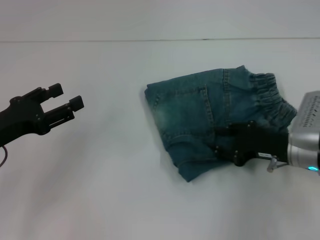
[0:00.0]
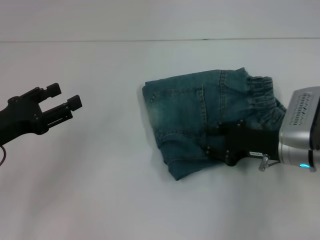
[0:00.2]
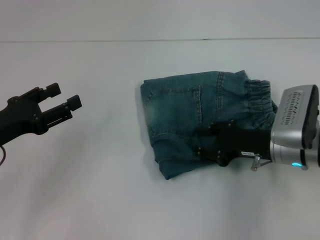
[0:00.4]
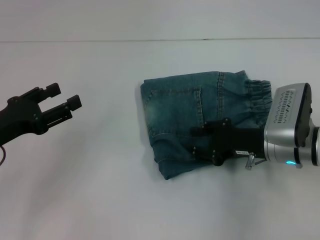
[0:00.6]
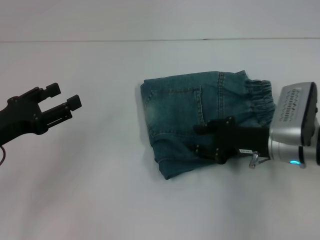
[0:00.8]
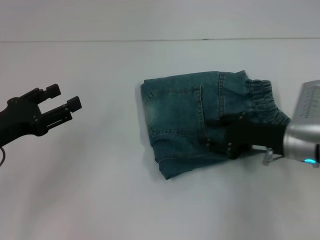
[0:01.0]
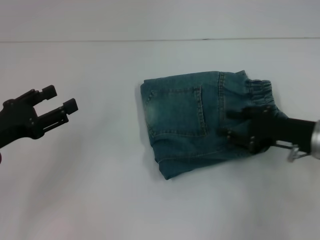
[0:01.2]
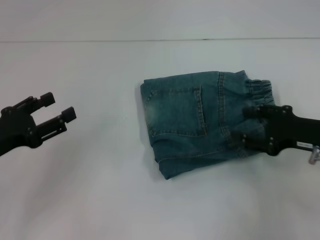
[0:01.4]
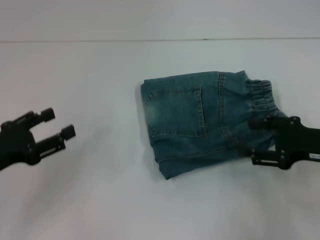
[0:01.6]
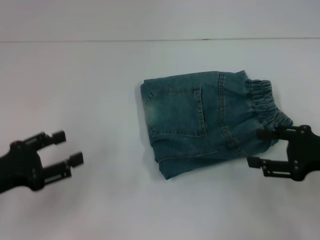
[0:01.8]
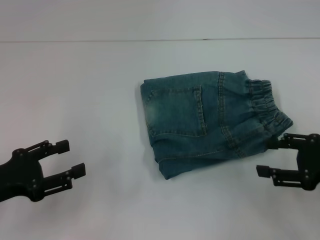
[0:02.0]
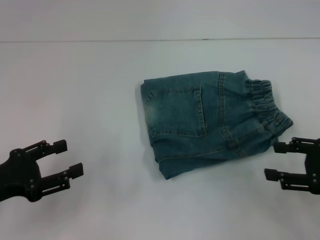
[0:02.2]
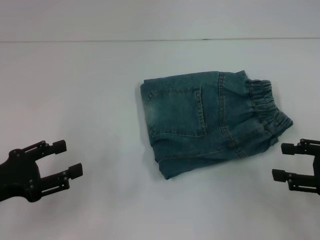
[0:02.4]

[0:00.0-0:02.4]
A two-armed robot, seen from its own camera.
0:00.0 to 0:01.2: There are only small adjustments of the grippers.
0:01.2 to 0:02.4: The right gripper moves to the right and backward, roughly 10 cm.

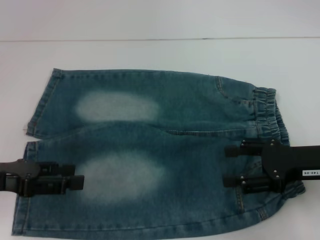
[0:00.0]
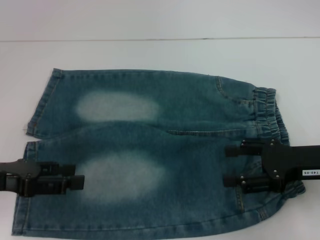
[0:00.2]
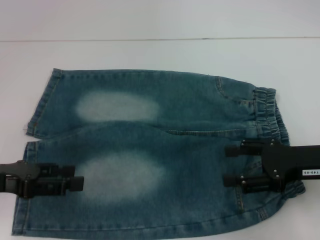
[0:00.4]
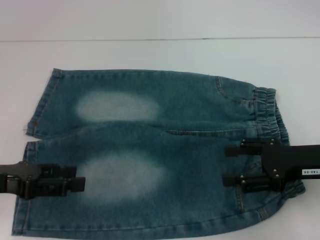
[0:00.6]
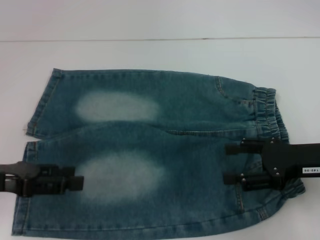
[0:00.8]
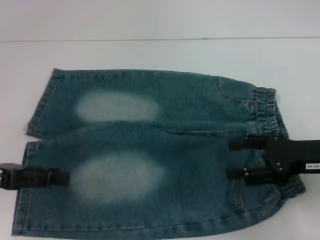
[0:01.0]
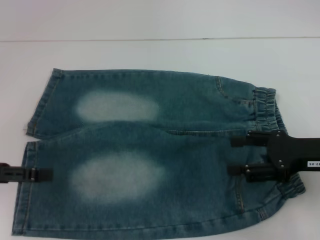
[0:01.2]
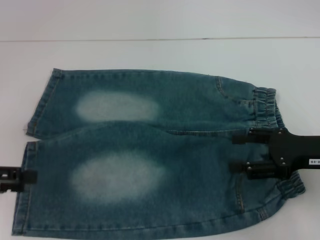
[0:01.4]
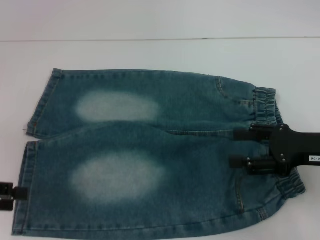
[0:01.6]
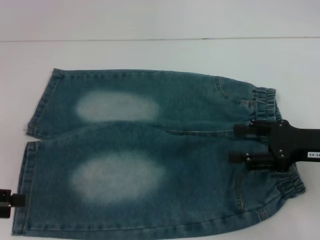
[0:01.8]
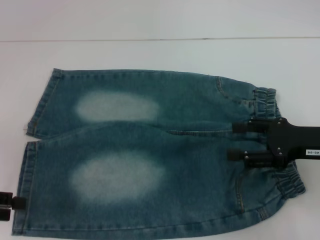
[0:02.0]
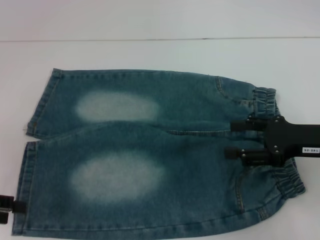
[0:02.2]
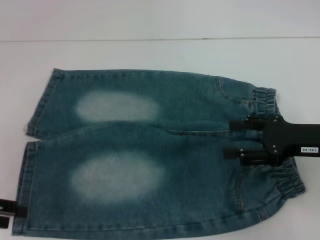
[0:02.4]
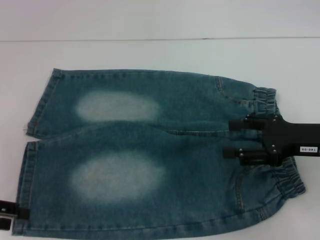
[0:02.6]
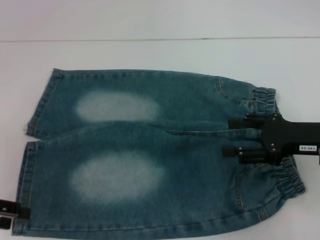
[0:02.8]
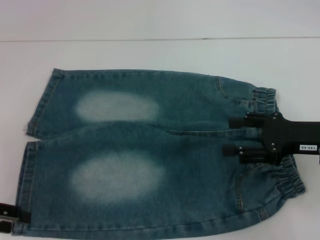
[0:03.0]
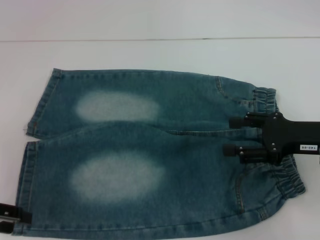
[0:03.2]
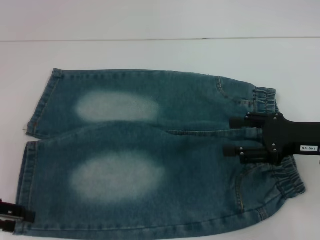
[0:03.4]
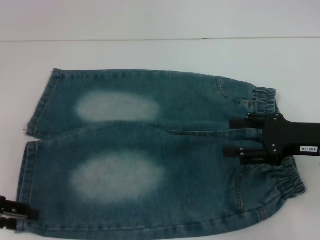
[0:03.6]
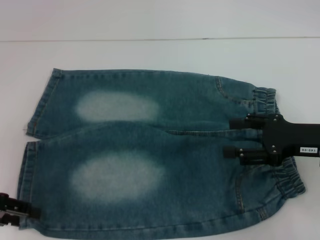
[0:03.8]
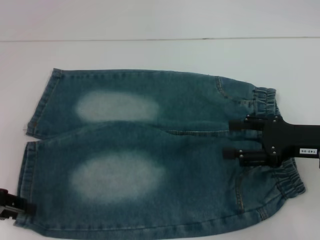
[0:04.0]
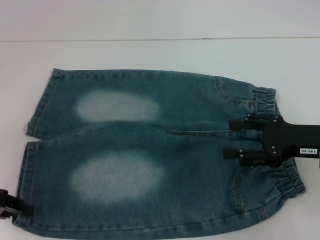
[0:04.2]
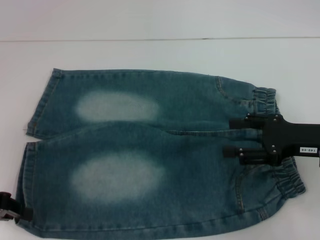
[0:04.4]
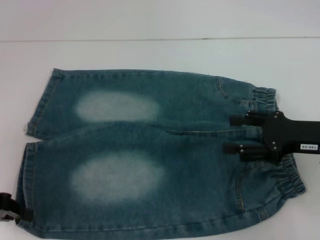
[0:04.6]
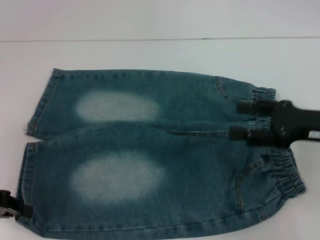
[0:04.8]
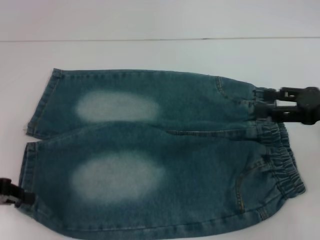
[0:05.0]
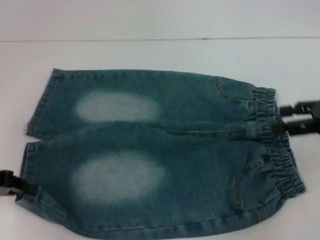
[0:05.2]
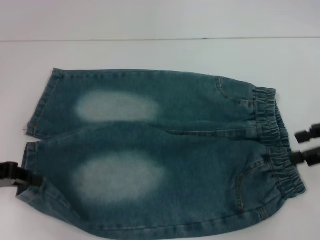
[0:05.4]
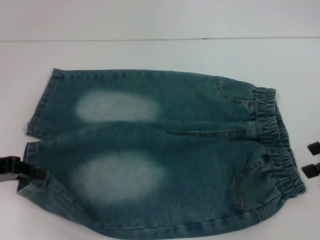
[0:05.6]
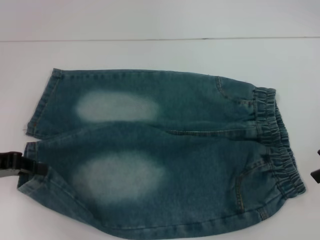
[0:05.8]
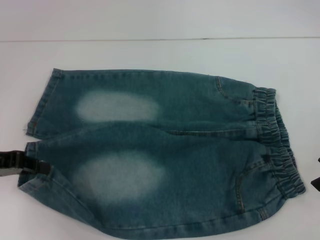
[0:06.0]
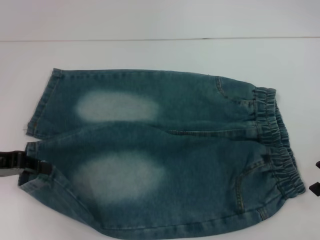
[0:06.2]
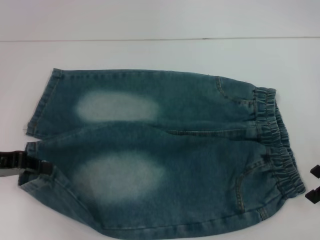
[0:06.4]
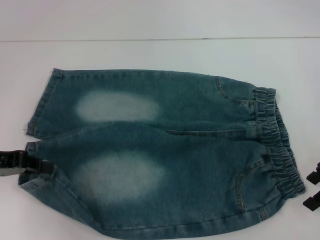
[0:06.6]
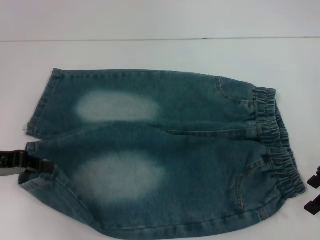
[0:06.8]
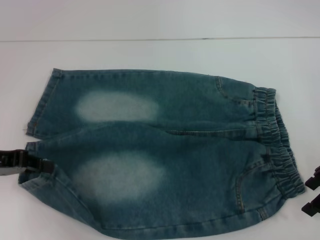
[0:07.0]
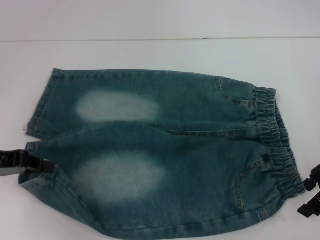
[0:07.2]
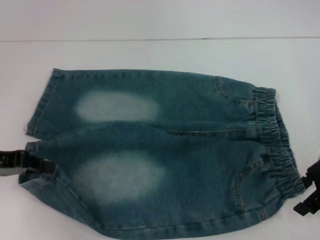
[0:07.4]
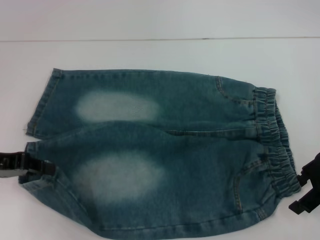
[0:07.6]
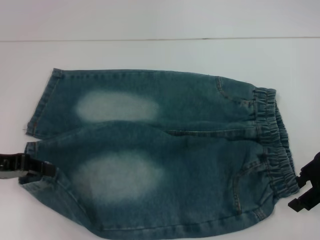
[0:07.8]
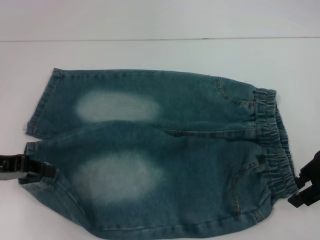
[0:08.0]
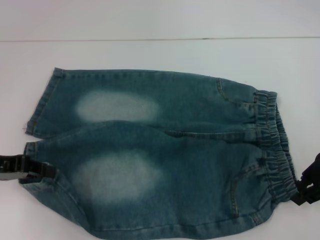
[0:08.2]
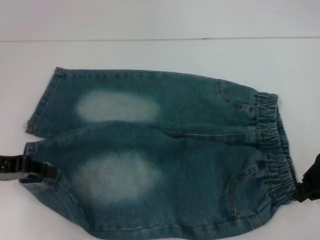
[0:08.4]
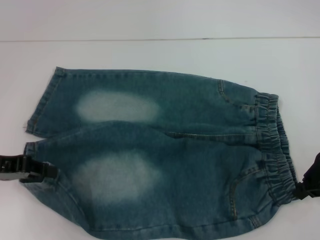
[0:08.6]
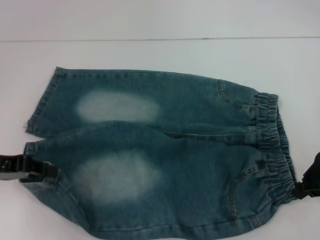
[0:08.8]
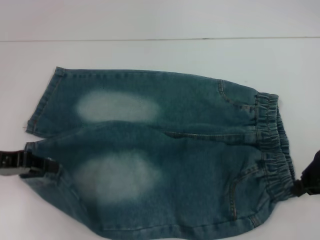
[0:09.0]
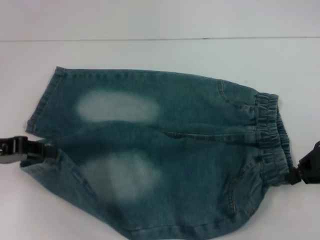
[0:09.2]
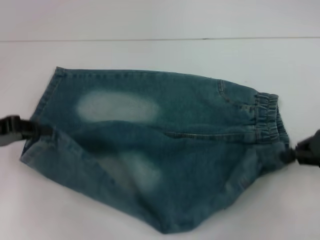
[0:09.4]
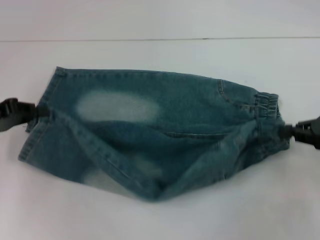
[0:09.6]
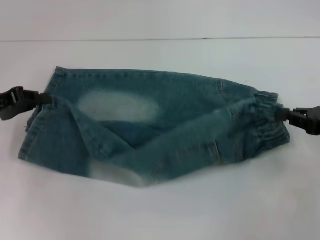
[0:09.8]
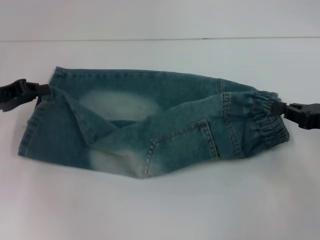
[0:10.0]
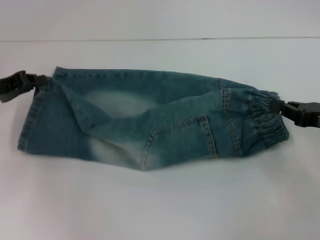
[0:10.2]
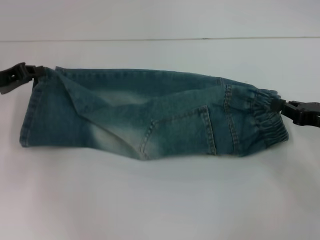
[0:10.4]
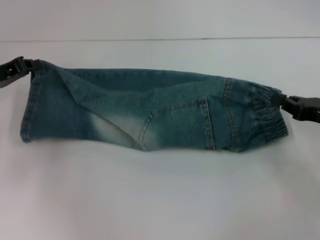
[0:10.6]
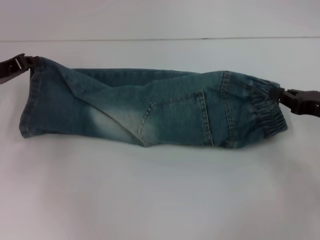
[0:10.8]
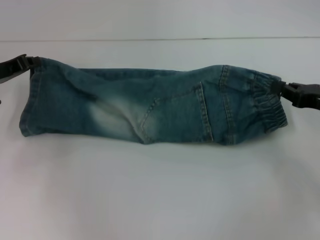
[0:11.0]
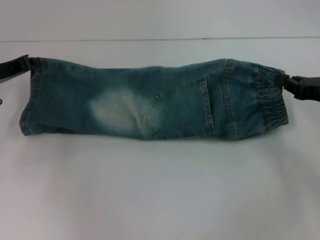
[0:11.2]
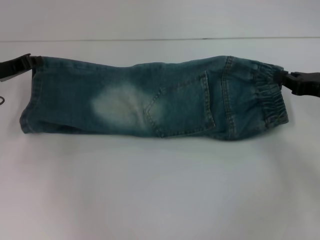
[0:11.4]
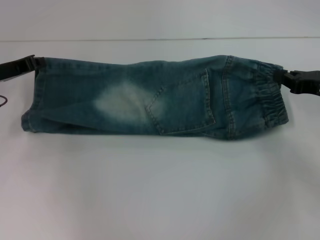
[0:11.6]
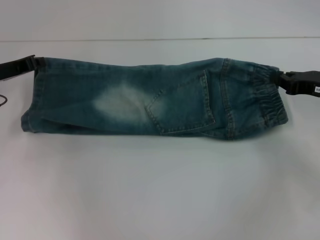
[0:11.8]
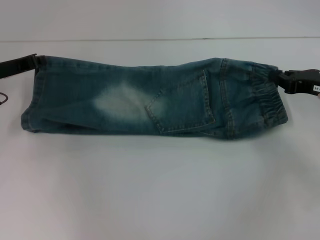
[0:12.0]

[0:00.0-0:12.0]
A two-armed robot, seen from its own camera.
Step, 0:00.0 to 0:04.8: Grab the lower left pant leg with your left hand.
Step, 0:05.0 to 0:08.4: Hold the lower right waistband with your right hand.
0:00.0 to 0:01.6: The left gripper travels to the left by roughly 5 cm.
0:01.6 to 0:03.0: There are only small adjustments of the grippers.
0:03.0 to 0:04.4: The left gripper closes.
0:04.4 to 0:06.0: The right gripper is displaced upward and to the right by some 10 cm.
0:06.0 to 0:07.6: The right gripper shifts by about 5 cm.
0:07.6 to 0:09.0: The right gripper closes its fingers.
0:09.0 to 0:10.4: The right gripper heads downward, covering roughly 5 cm. Meanwhile the left gripper moves forward, approximately 10 cm.
0:10.4 to 0:12.0: The right gripper is displaced forward by approximately 5 cm.

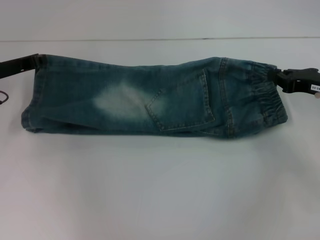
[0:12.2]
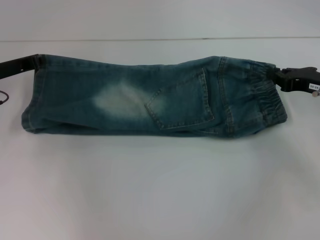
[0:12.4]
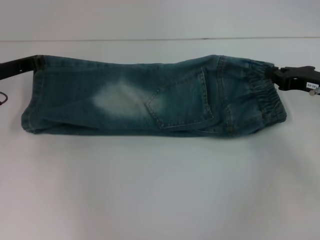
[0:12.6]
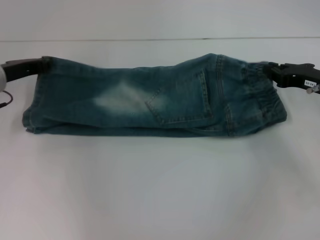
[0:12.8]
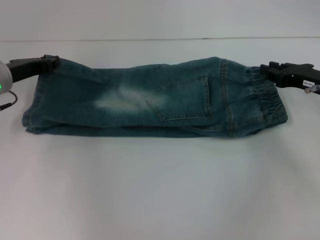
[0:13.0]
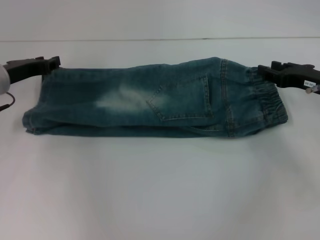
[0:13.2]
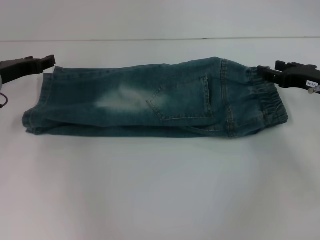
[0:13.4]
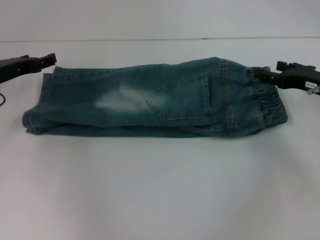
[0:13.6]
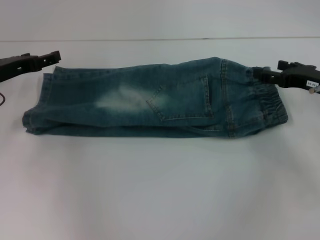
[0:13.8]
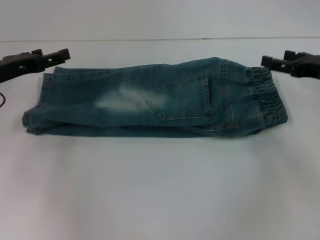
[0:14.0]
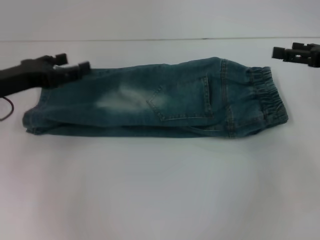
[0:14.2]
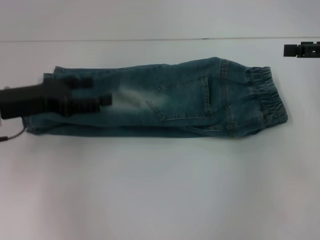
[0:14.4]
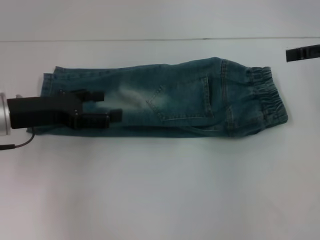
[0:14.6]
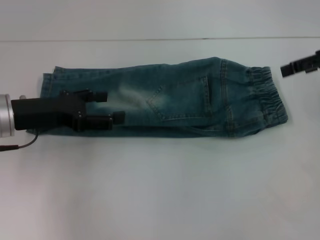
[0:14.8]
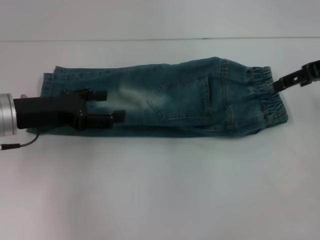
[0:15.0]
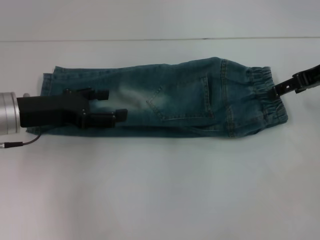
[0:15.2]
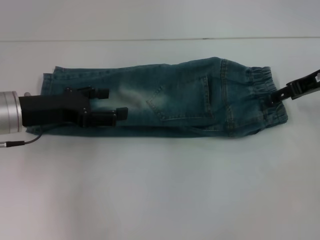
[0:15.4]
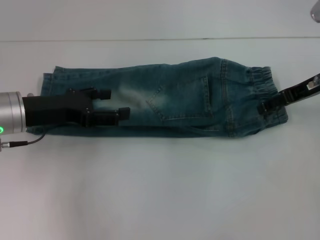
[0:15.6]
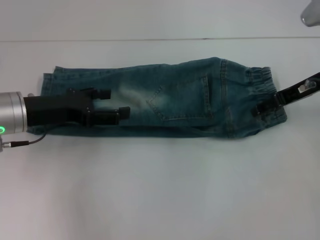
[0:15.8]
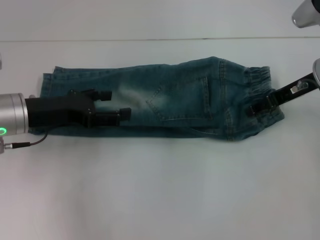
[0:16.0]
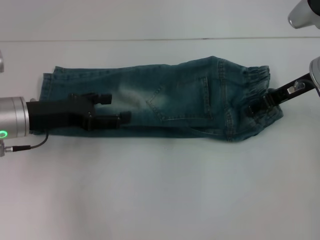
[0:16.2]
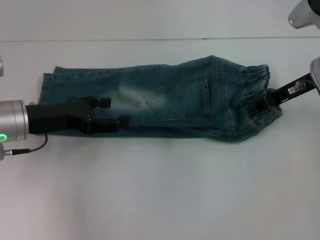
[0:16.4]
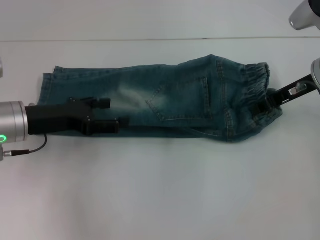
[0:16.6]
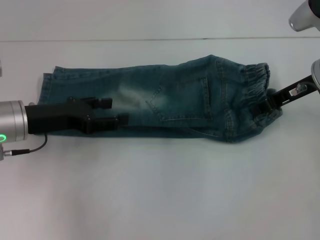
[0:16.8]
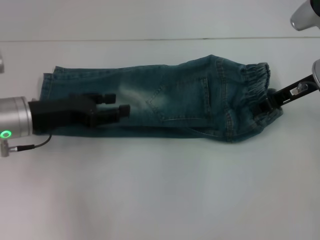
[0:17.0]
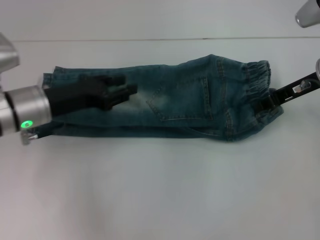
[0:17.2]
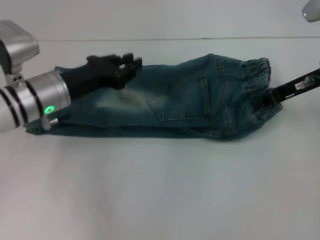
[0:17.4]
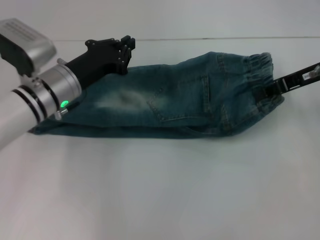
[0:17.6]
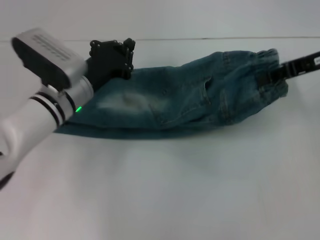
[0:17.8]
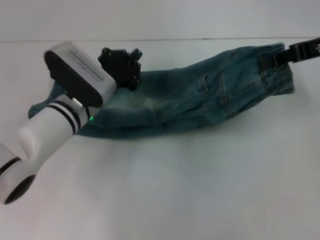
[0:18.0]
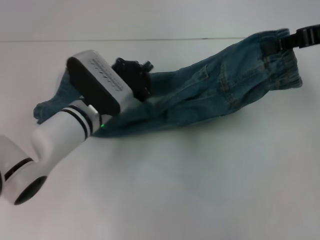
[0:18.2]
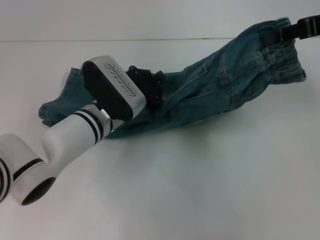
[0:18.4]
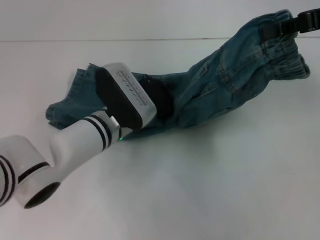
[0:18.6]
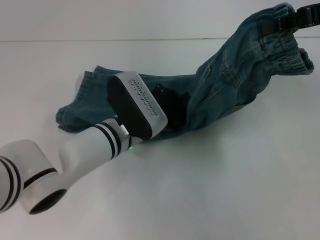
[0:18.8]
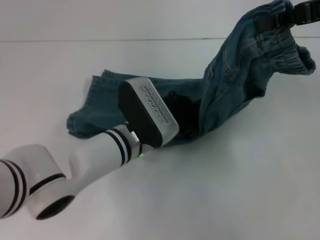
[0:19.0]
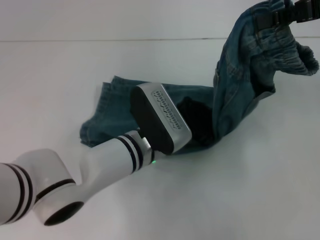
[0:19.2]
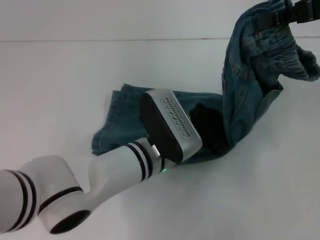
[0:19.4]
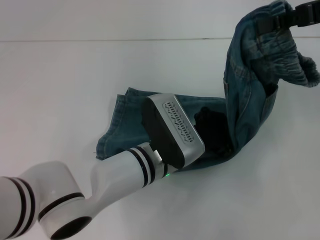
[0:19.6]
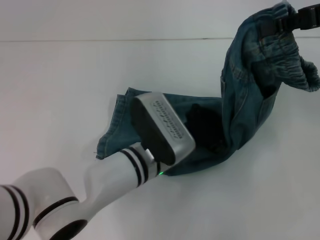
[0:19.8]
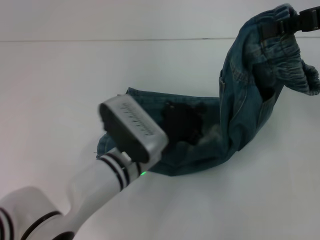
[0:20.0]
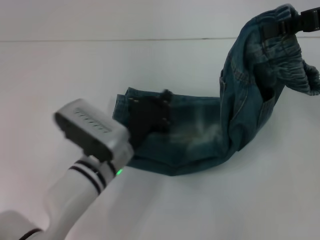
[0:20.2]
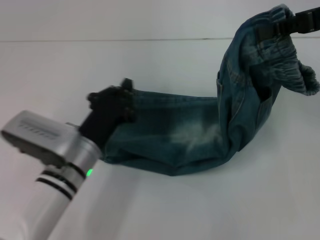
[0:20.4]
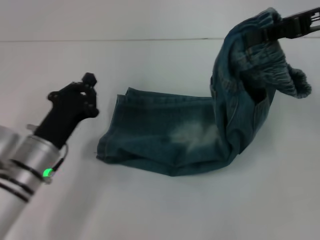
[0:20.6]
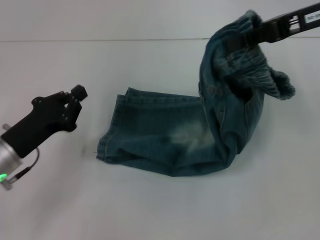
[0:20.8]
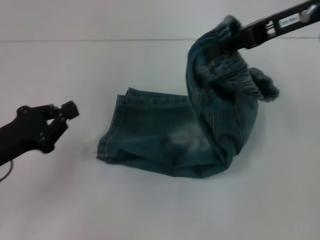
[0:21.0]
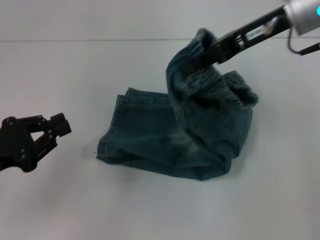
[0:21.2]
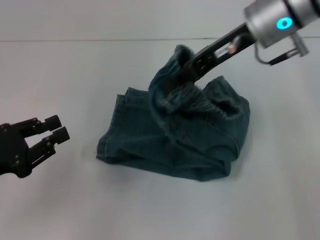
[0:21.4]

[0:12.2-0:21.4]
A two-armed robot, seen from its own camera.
Step, 0:13.8 to 0:17.0: Grab the waistband with your right hand.
Step, 0:17.2 to 0:19.8: Press the middle of the pants with your left hand.
0:12.2 to 0:13.8: The left gripper opens its fingers; the right gripper opens its fingers.
0:13.8 to 0:15.2: The right gripper goes approximately 10 cm upward, while the left gripper heads backward, covering roughly 5 cm.
0:15.2 to 0:16.8: The right gripper shifts by roughly 5 cm, and closes up.
0:16.8 to 0:18.4: The right gripper travels upward by about 10 cm, while the left gripper is displaced to the right and downward by about 15 cm, and closes its fingers.
0:18.4 to 0:19.8: The left gripper shifts some 10 cm to the right and backward.
0:19.8 to 0:21.4: The right gripper heads to the left, covering some 15 cm, while the left gripper moves to the left, some 30 cm.
